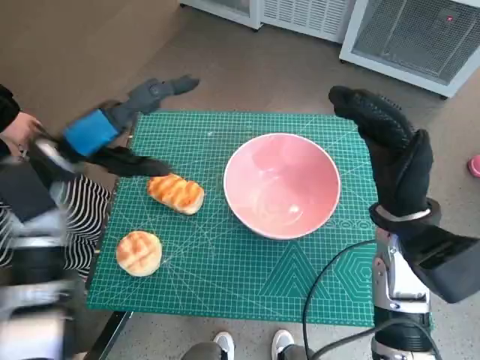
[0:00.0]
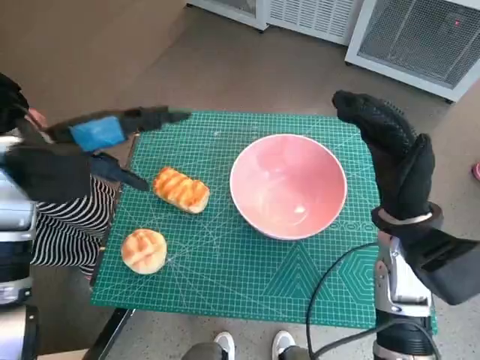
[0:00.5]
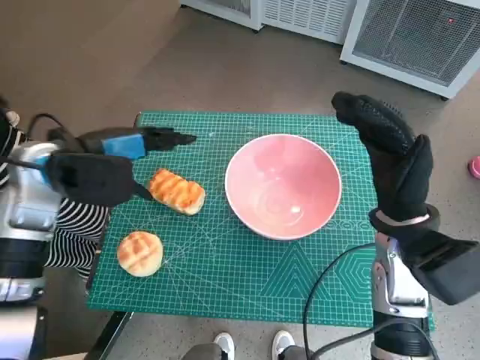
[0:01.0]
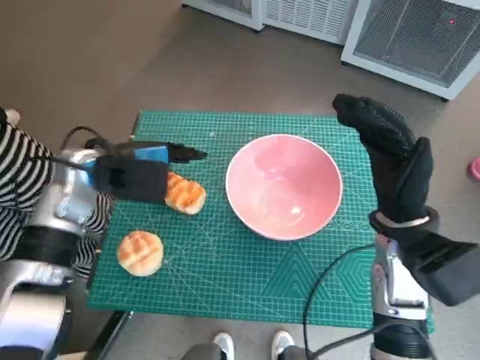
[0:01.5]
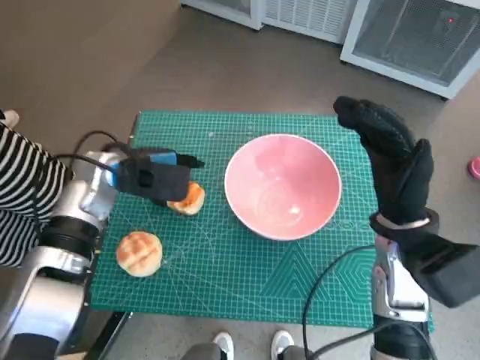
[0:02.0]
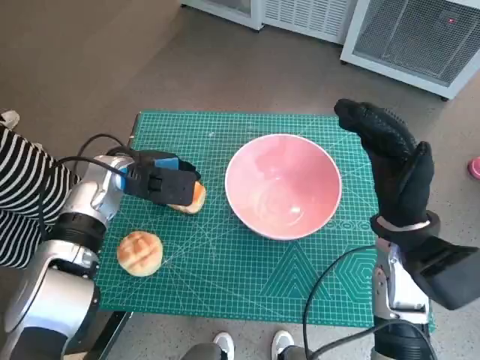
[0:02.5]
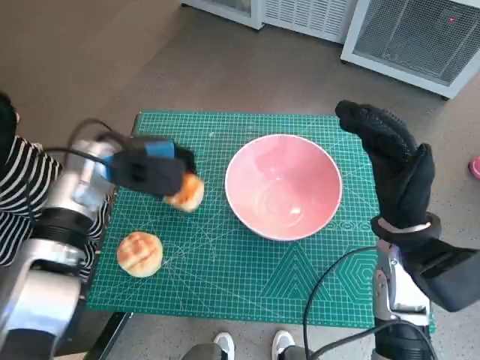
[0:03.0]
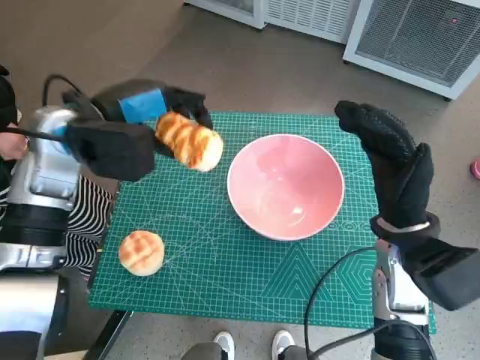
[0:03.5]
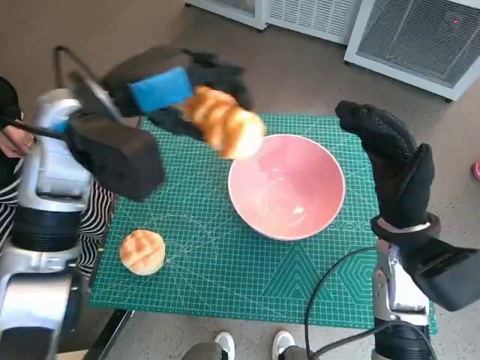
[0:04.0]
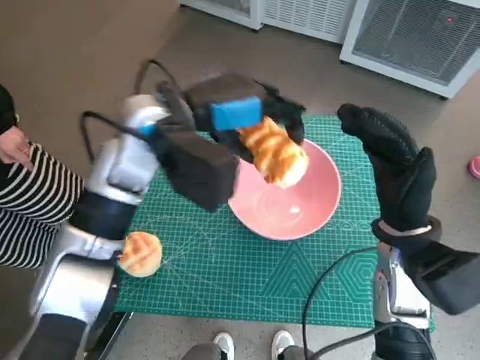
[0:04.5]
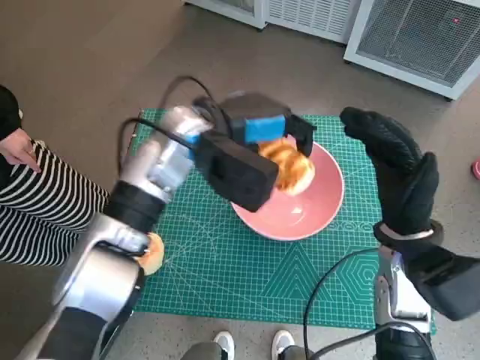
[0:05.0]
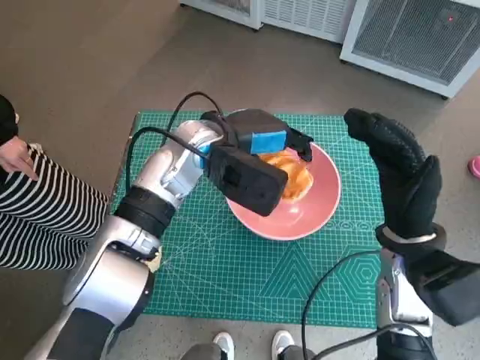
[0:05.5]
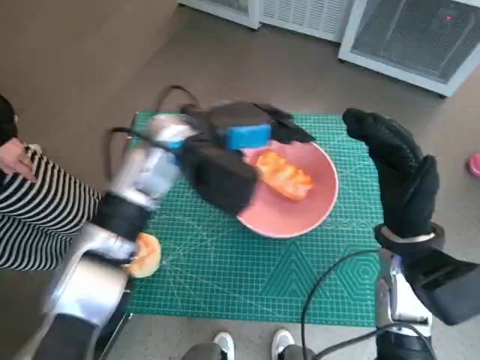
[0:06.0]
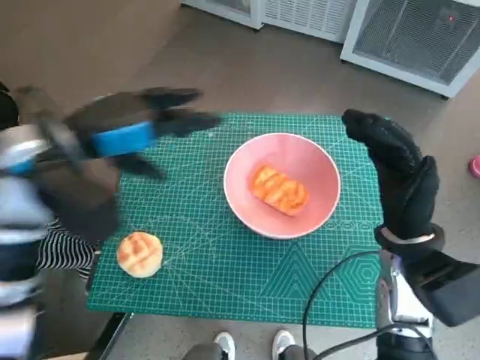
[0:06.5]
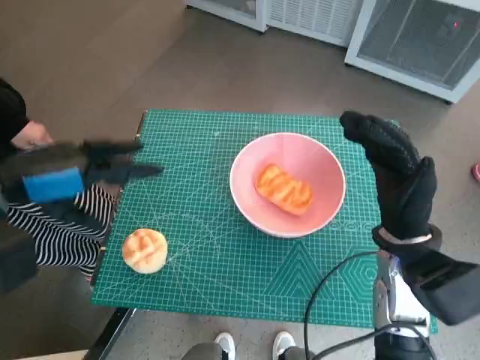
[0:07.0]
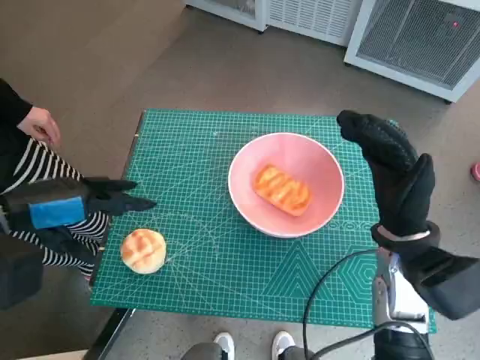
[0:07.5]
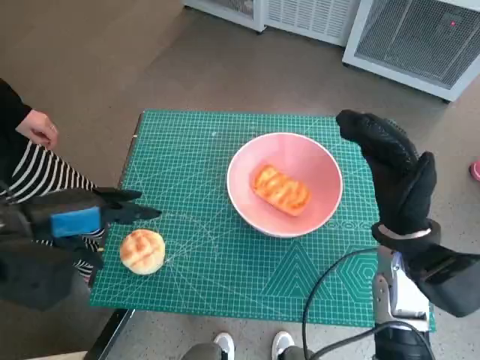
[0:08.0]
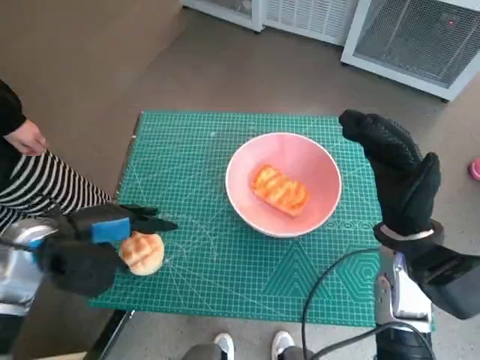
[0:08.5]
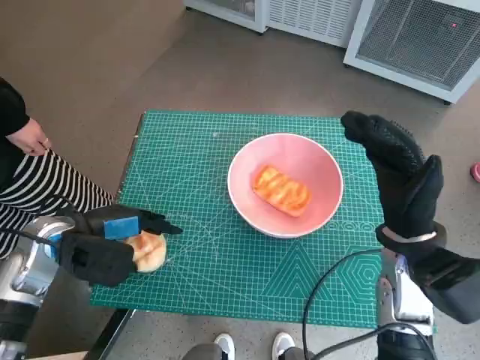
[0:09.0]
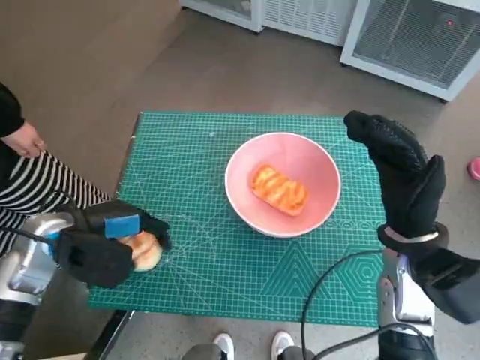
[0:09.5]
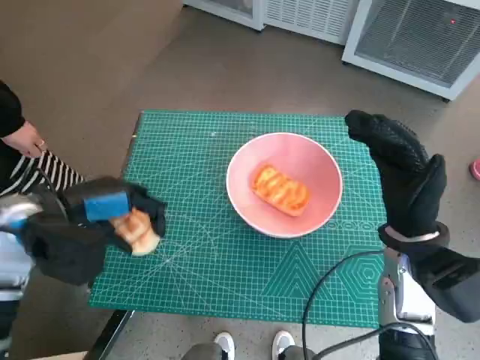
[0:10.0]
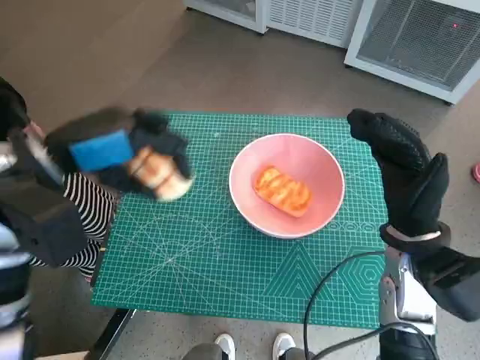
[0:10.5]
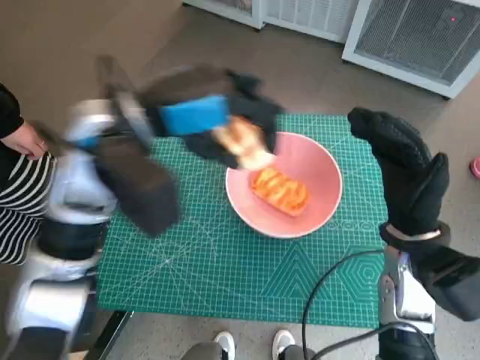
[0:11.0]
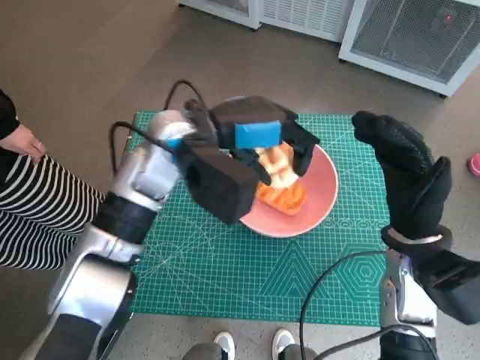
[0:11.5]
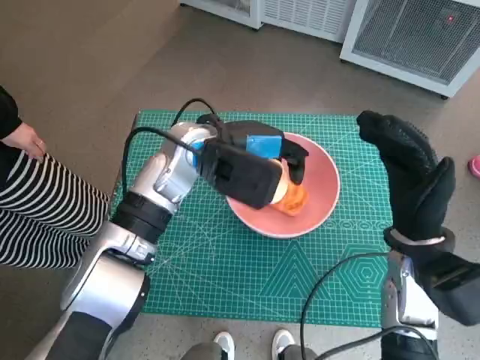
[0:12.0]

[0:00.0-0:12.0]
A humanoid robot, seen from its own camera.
Task of the whole recording: Push the bowl into the center of the table and put the bread into the bowl.
Step, 0:00.0 to 0:02.5: Grasp the long bread with left hand.
Step, 0:03.0 to 0:06.0: Place the long bread in pink bowl with left hand.
Step, 0:06.5 to 0:09.0: Grasp the round bread with left hand.
0:00.0 to 0:02.0: The left hand changes place by approximately 5 cm.
0:02.0 to 0:04.0: The left hand travels upward by about 15 cm.
0:04.0 to 0:06.0: The left hand moves to the right and downward, approximately 10 cm.
0:06.0 to 0:08.0: The left hand is displaced to the left and backward by some 20 cm.
0:08.0 to 0:10.0: The left hand reaches approximately 10 cm downward, then returns.
0:10.0 to 0:12.0: The left hand is displaced to the right and forward by roughly 20 cm.

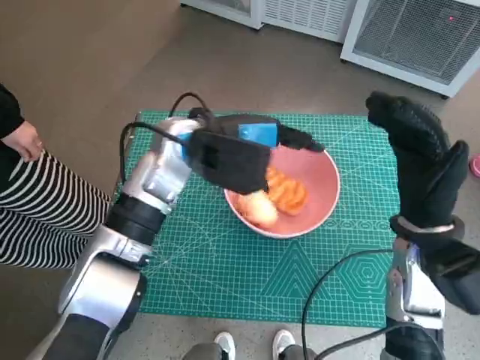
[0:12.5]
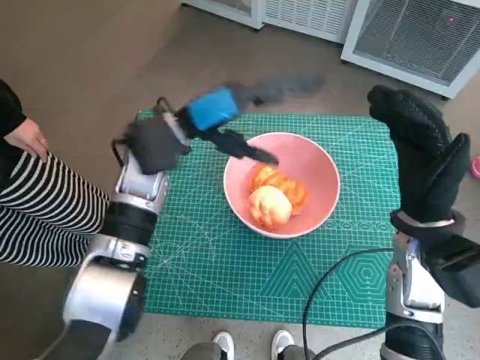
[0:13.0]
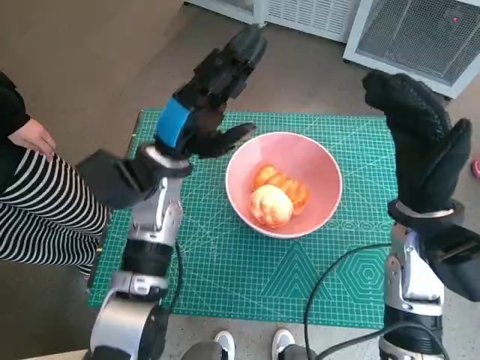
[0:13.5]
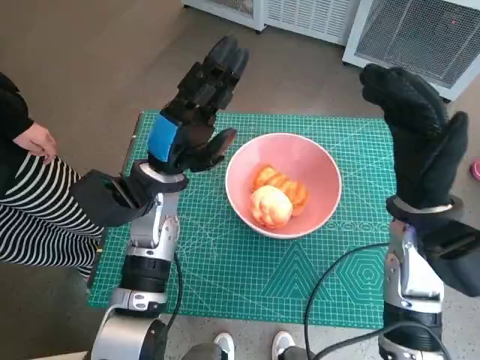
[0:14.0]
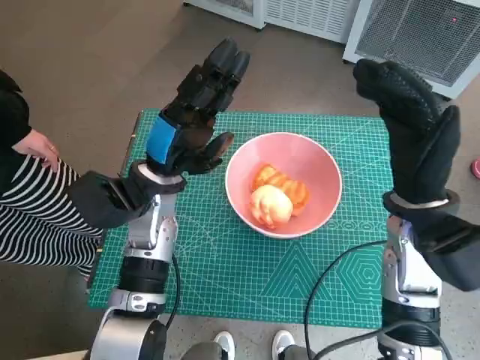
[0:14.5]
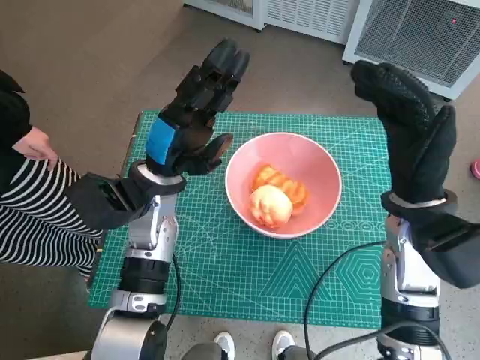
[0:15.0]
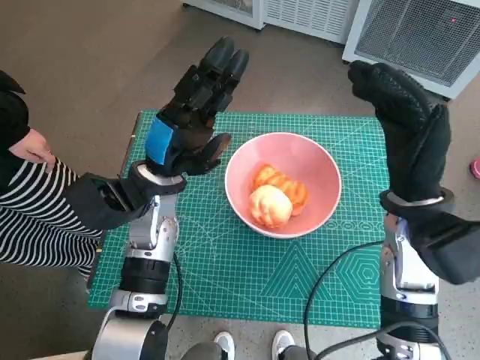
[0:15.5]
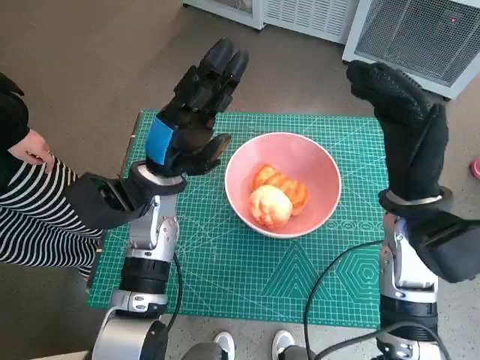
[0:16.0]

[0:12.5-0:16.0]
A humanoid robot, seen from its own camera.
Task of the whole recording: Push the bowl into the center of the table and put the bread into the bowl.
0:12.5 to 0:14.5: The left hand travels downward and to the left by about 10 cm.
0:14.5 to 0:16.0: Both hands stay put.
